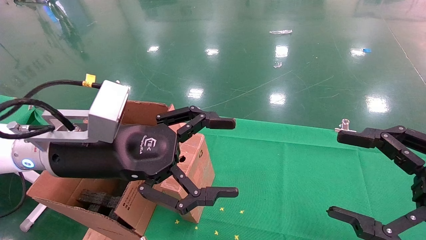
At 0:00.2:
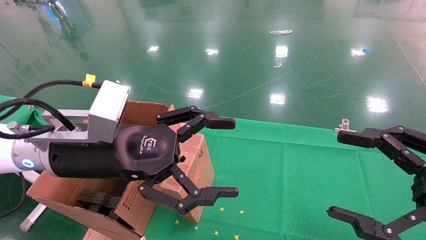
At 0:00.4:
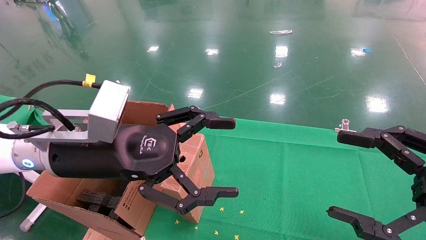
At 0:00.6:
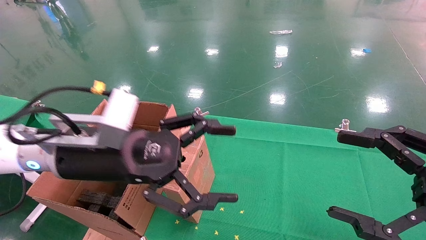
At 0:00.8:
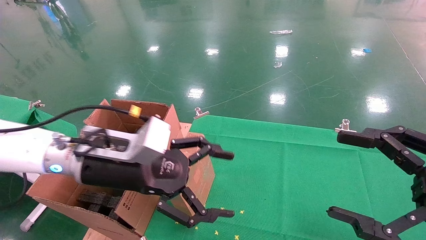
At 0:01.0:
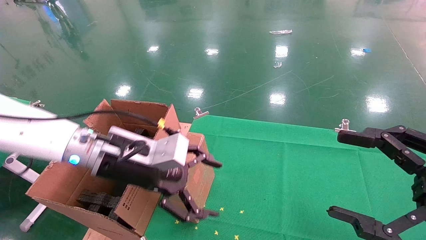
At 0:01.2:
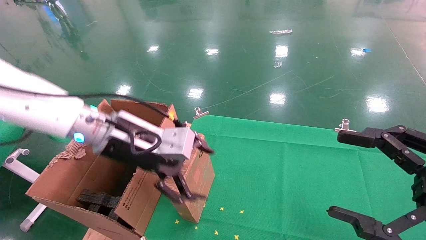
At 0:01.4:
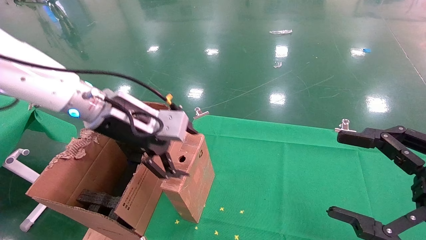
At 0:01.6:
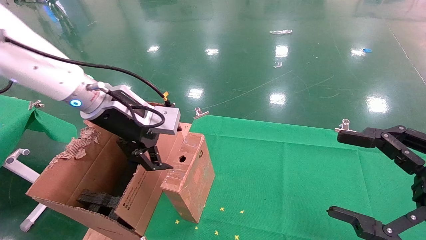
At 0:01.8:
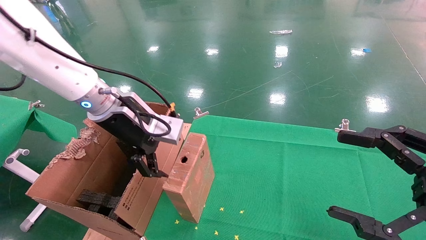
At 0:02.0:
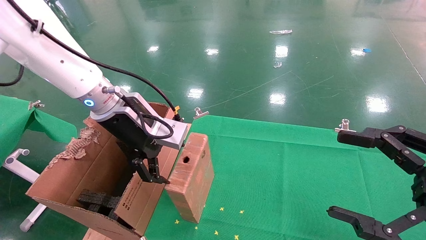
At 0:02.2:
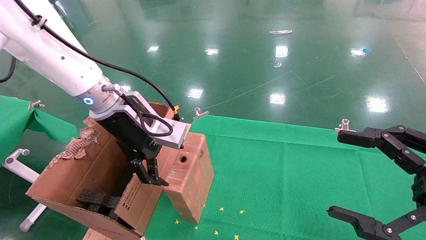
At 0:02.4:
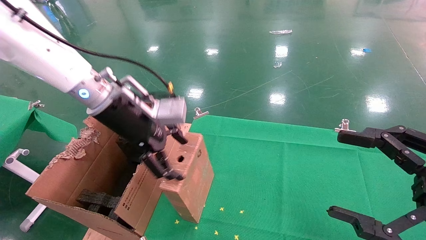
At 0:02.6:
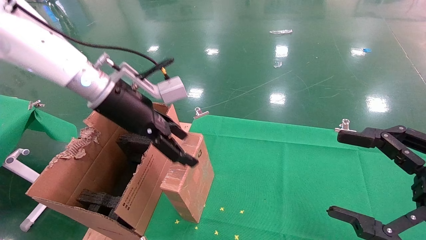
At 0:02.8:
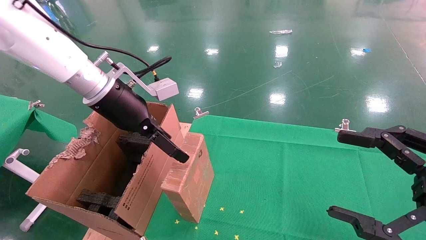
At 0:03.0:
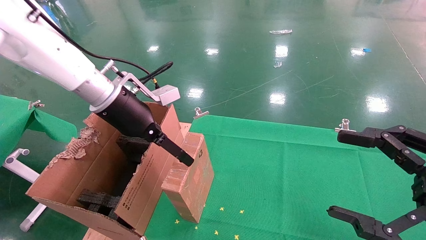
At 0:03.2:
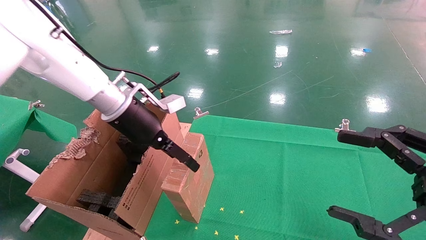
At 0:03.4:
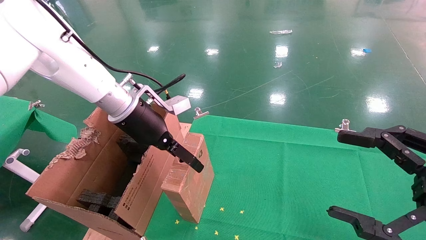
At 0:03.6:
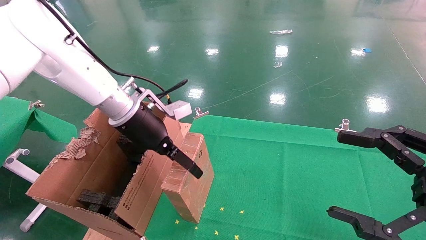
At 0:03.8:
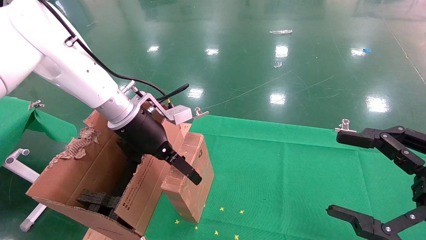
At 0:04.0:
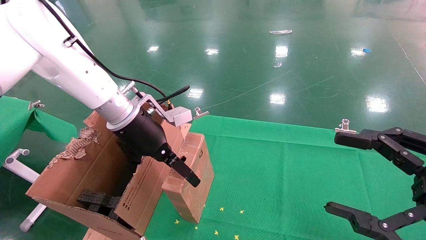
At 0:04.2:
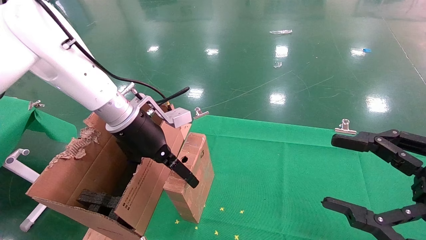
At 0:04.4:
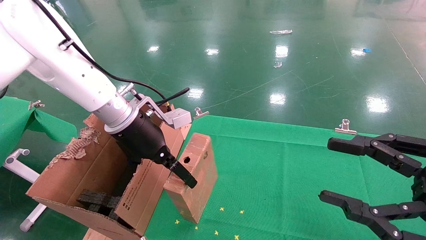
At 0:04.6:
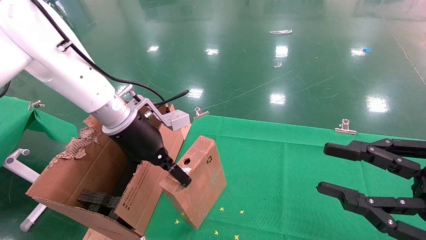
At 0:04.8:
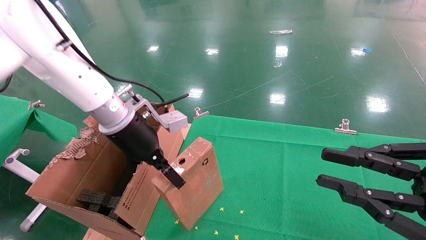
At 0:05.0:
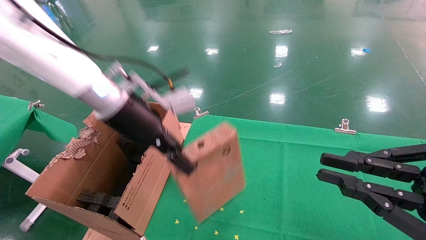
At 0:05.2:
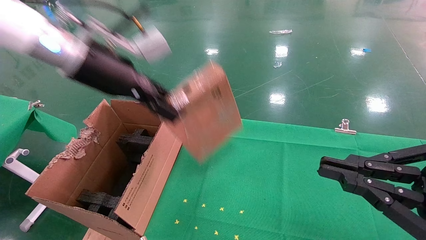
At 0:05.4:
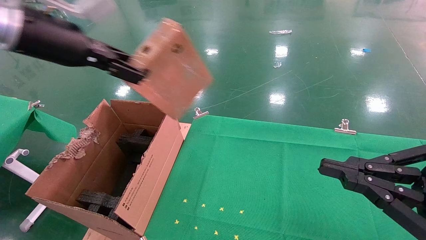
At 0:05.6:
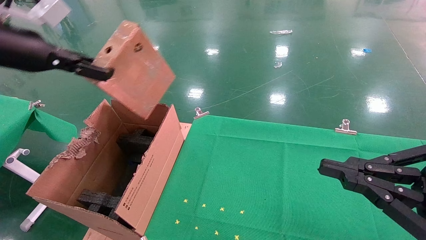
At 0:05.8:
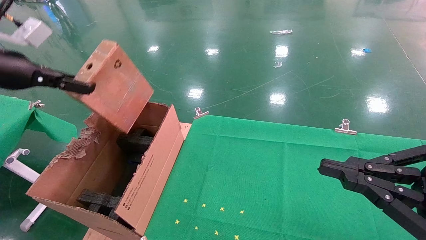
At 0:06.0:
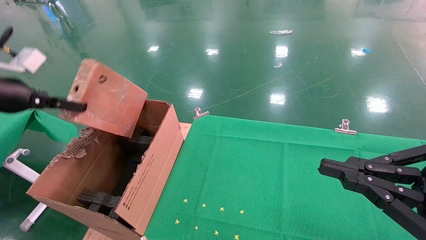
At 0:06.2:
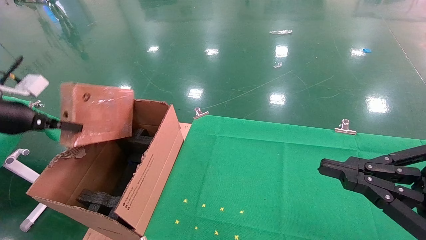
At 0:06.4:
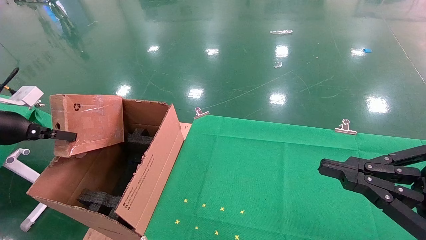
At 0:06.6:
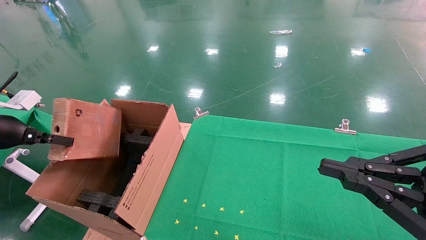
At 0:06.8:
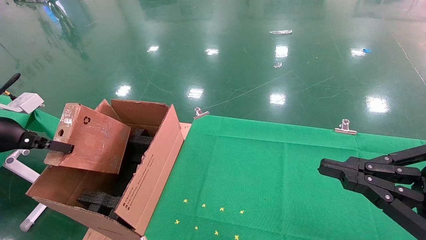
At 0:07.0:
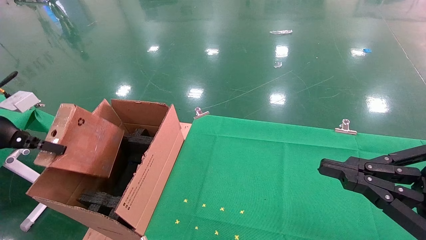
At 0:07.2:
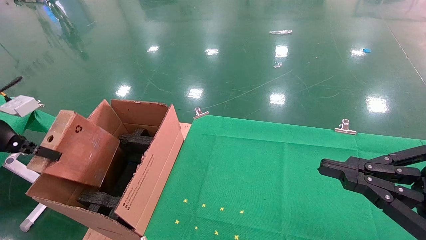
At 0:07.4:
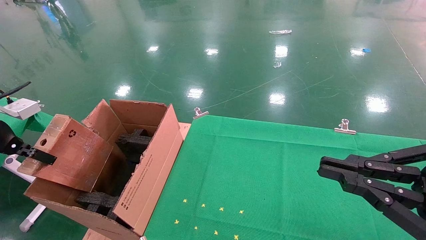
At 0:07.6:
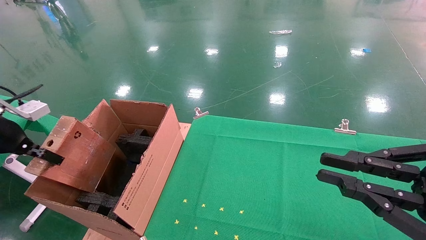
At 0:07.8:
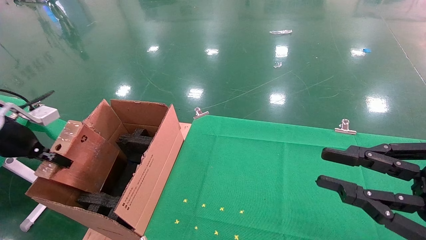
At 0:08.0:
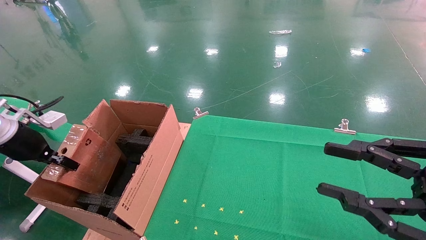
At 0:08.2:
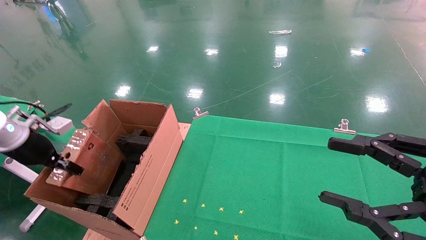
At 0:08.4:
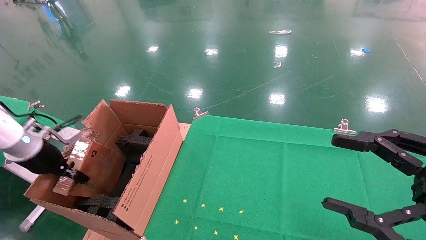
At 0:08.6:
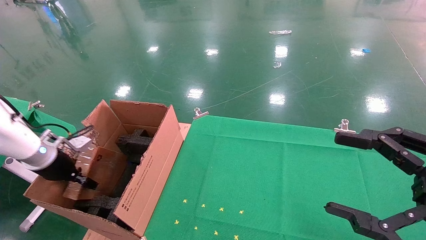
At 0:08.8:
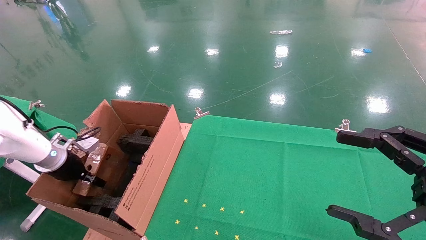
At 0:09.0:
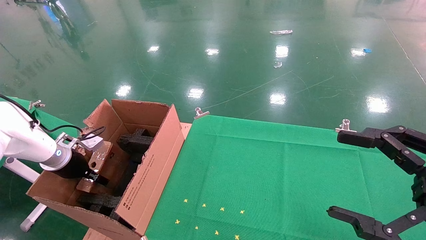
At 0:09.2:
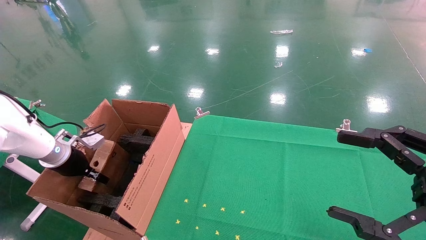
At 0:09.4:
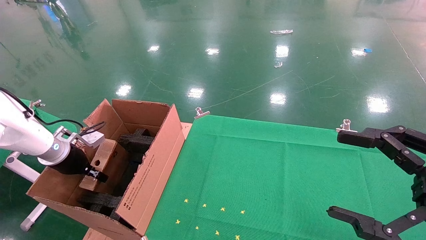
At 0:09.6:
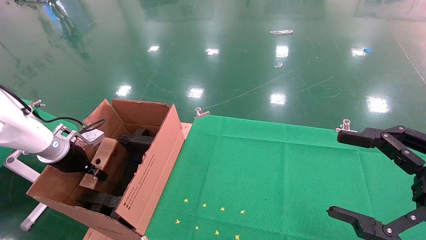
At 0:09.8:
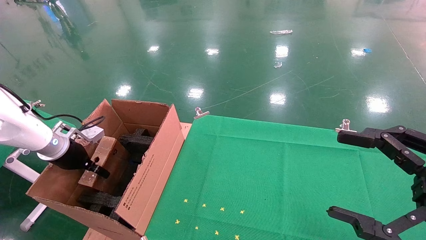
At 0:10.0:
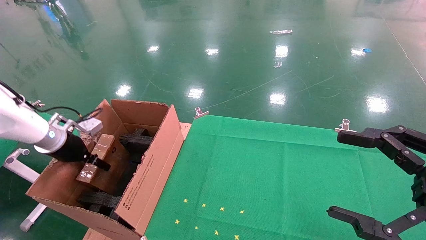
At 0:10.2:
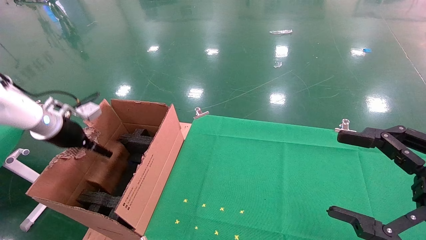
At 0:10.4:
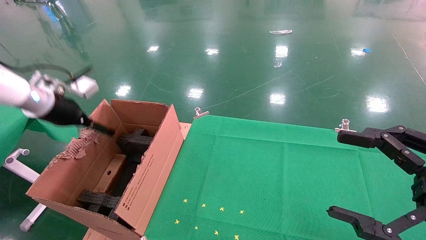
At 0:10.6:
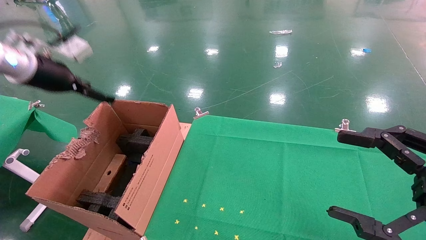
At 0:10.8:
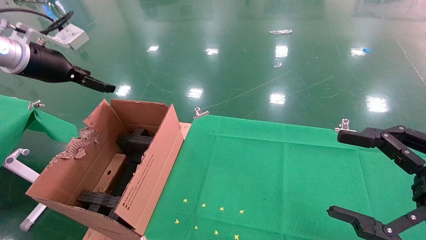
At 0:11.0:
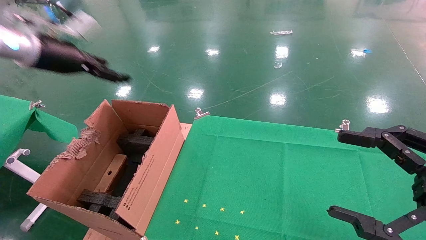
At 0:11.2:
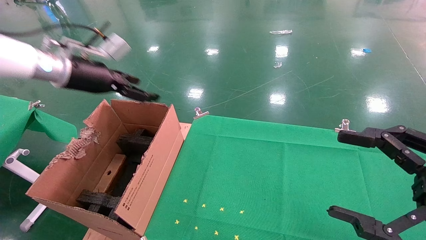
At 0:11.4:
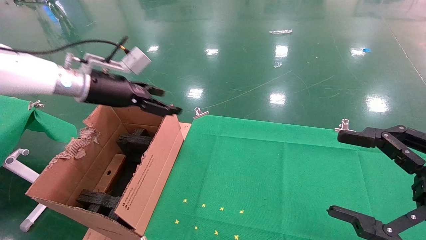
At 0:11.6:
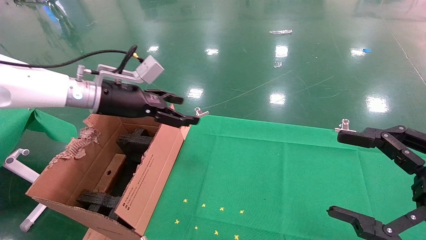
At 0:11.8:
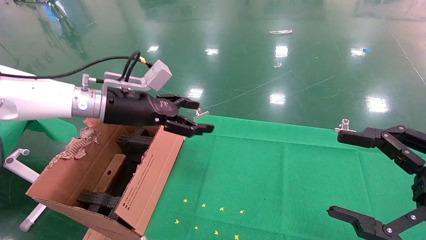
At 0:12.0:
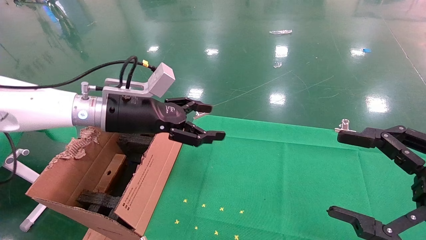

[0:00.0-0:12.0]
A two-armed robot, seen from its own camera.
Task of the whole recording: using a robotic arm to pick up a cardboard box and palace it the carton.
Step, 0:00.8 to 0:04.8: Pick up the mouse and the power cord paper box.
Step, 0:05.0 to 0:10.8: Place the mouse and the power cord paper box into the container.
0:00.0 to 0:01.6: The left gripper moves forward, roughly 10 cm.
0:03.0 to 0:04.4: The left gripper closes.
0:04.4 to 0:06.0: The right gripper closes its fingers; the left gripper heads to the left, covering roughly 25 cm, and closes up.
0:06.0 to 0:07.6: The left gripper travels downward by about 5 cm.
0:07.6 to 0:09.0: The right gripper opens its fingers, while the left gripper shifts roughly 15 cm downward and forward.
0:09.0 to 0:10.4: The left gripper travels upward by roughly 15 cm, and opens.
0:10.4 to 0:12.0: The left gripper is displaced to the right by about 20 cm.

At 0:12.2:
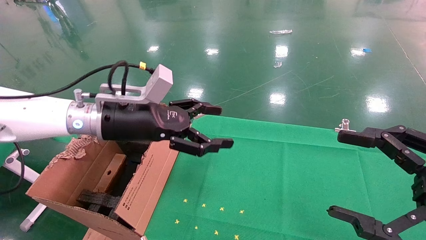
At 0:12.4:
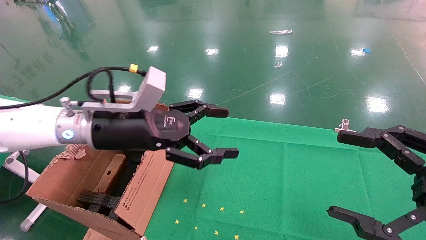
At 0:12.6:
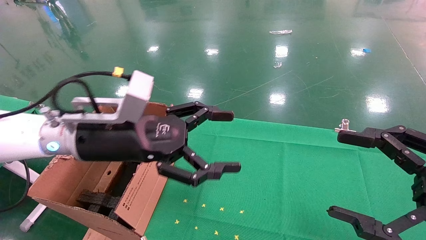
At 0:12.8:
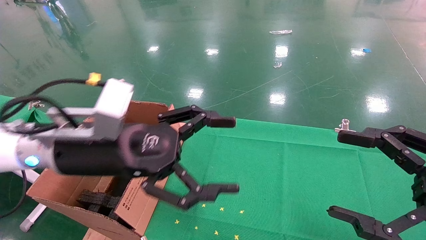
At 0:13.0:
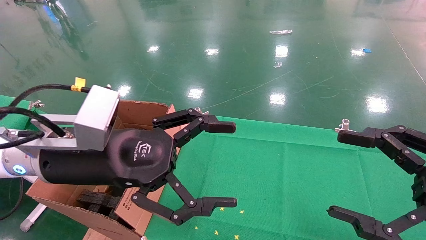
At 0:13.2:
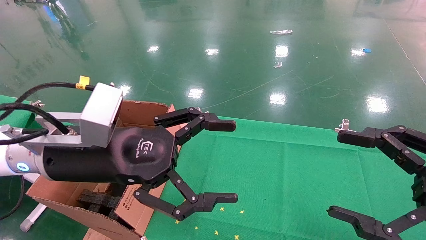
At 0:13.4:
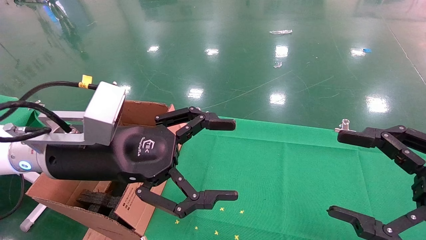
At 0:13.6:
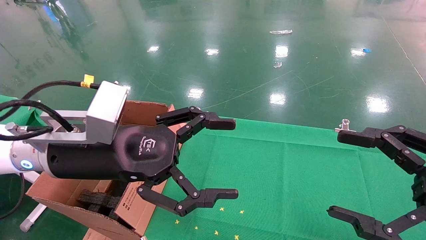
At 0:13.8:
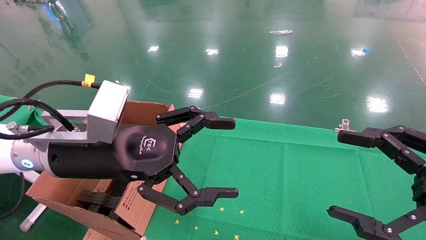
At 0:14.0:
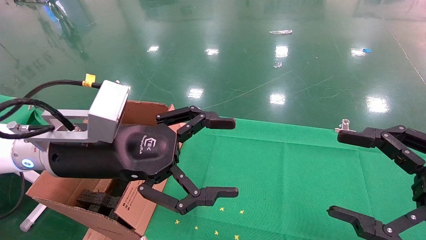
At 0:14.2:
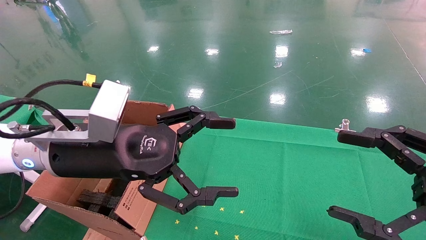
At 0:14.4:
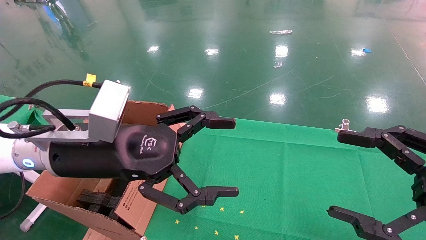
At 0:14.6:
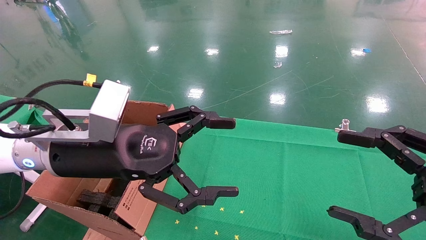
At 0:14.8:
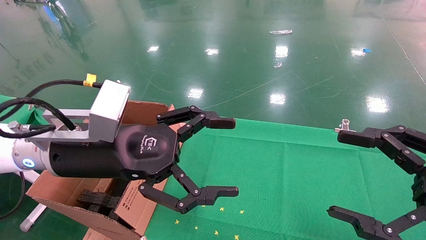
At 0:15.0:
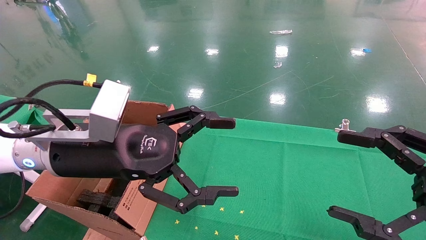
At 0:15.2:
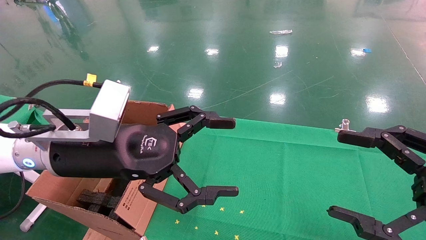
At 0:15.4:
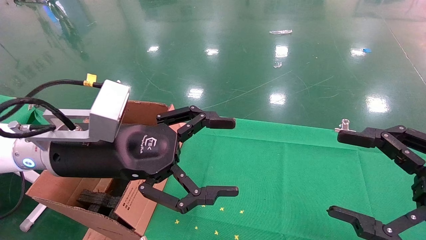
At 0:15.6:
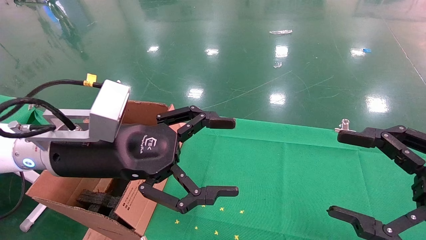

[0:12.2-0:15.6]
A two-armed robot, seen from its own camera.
Task of the whole recording: using a robotic arm to pick up a cardboard box and palace it the carton.
0:12.2 to 0:13.8: The left gripper heads backward, covering some 10 cm.
0:13.8 to 0:15.6: Both grippers stay put.
